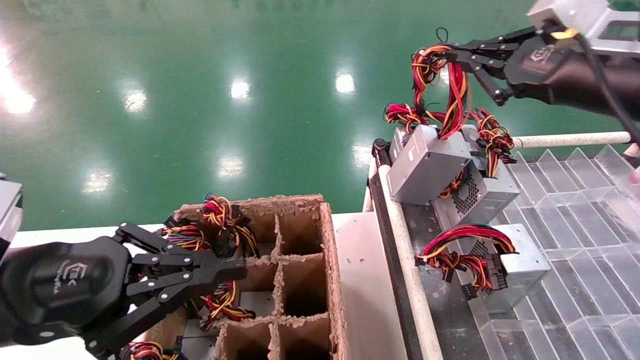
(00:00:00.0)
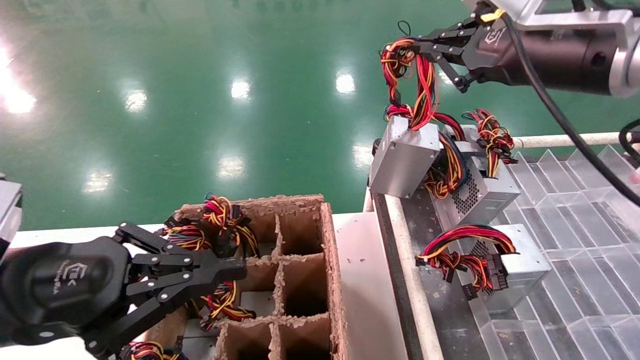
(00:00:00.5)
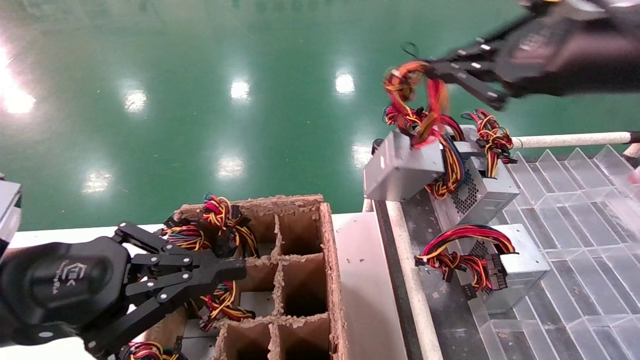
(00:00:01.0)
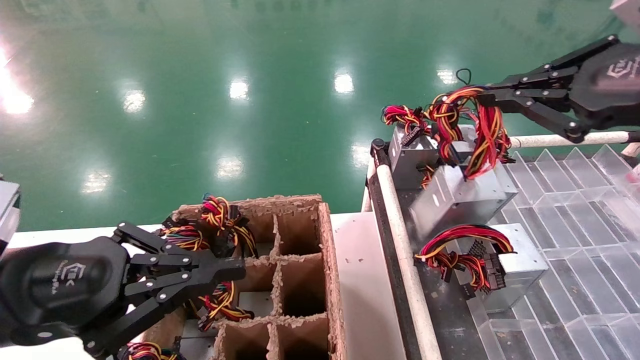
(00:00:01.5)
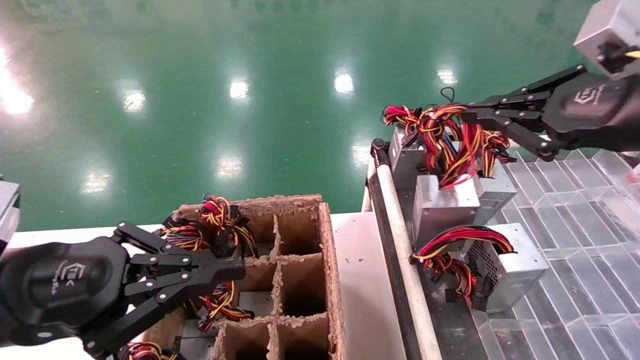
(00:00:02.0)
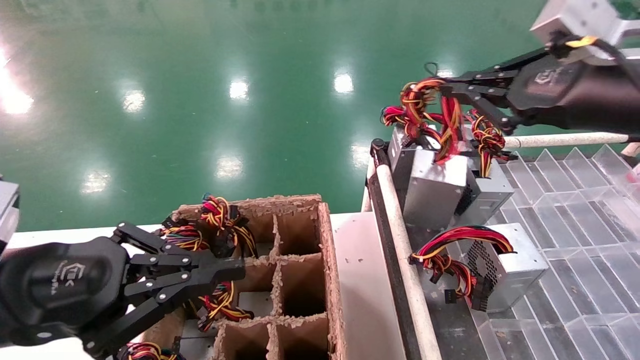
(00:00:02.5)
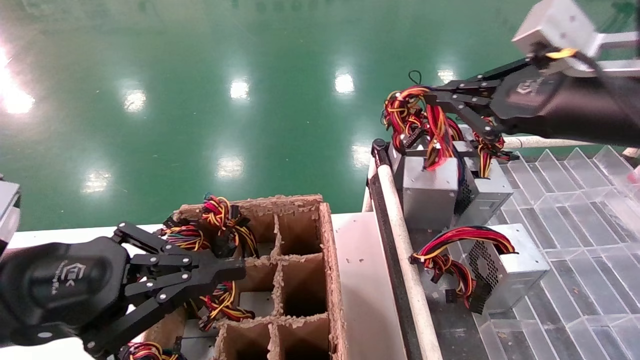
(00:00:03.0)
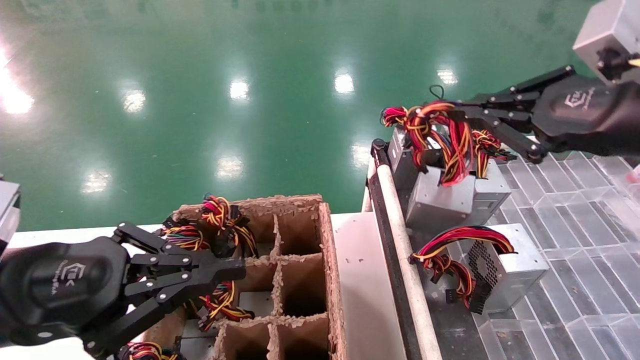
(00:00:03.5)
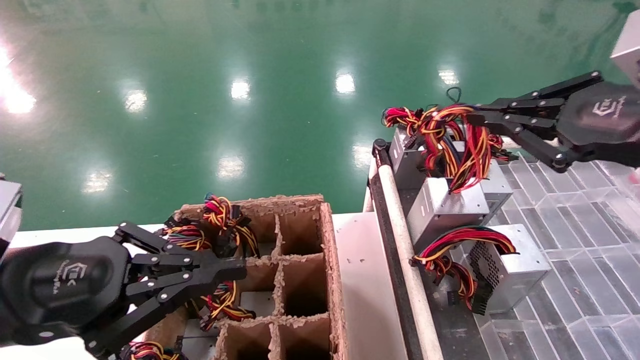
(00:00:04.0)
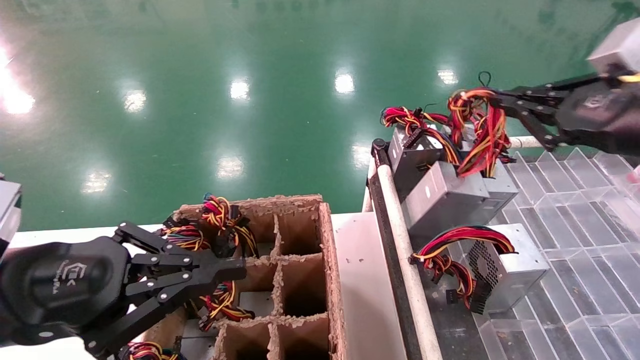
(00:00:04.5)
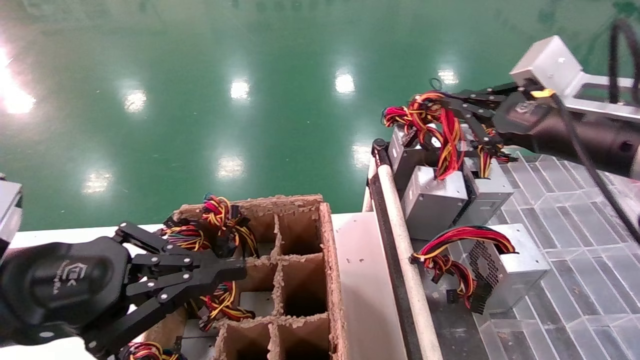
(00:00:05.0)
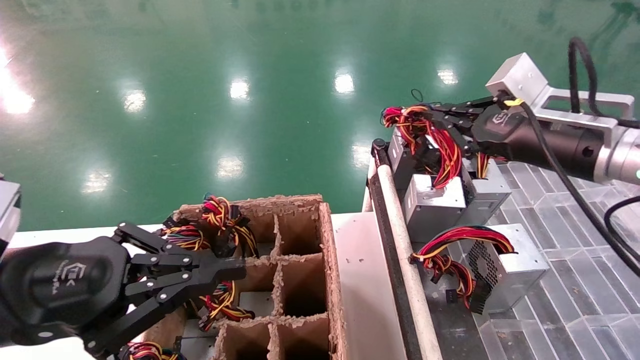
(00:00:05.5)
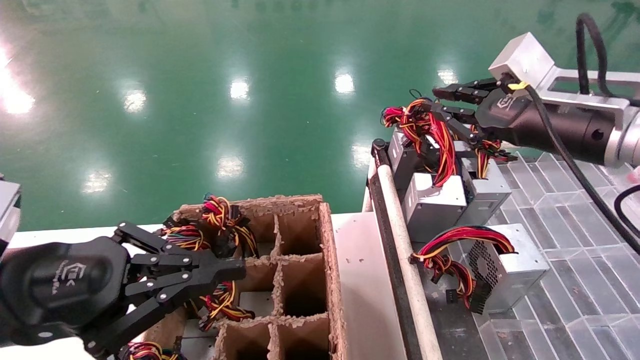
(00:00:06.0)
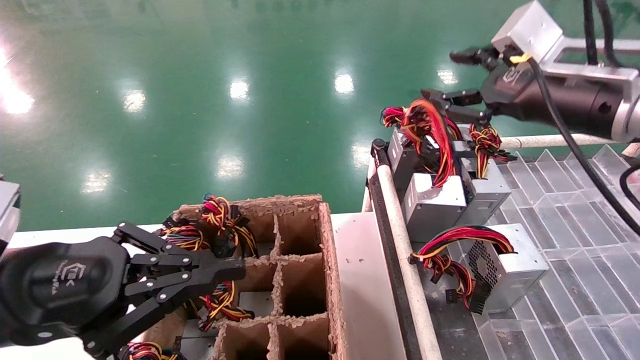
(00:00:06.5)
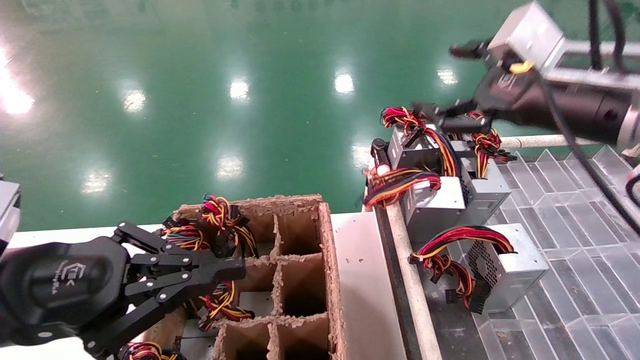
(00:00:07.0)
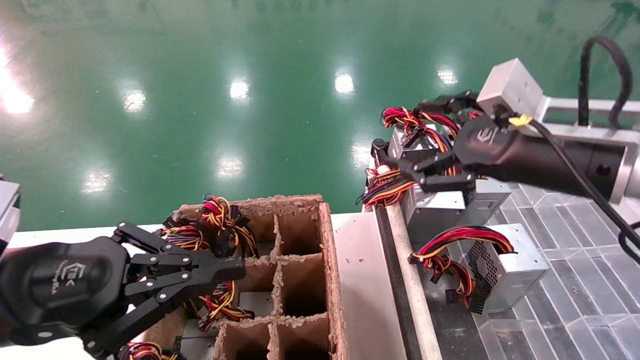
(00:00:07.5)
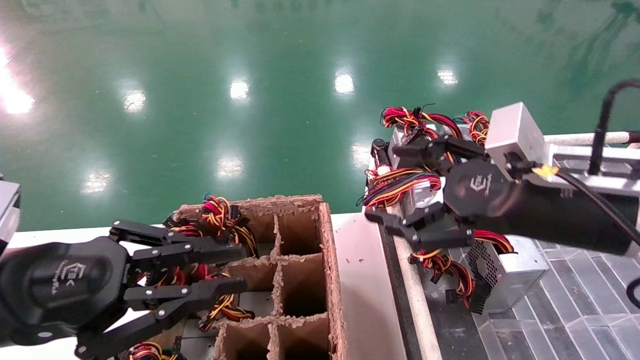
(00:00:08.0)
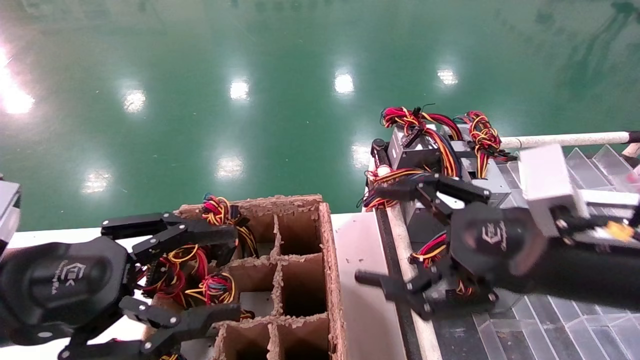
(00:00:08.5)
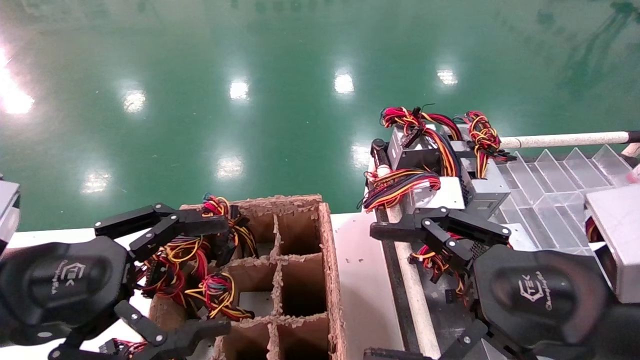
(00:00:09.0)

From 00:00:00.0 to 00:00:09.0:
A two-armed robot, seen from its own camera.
Step, from 00:00:00.0 to 00:00:05.5: Place the main unit power supply in the designated area.
From 00:00:00.0 to 00:00:02.0: The right gripper goes approximately 5 cm backward.
From 00:00:02.0 to 00:00:04.5: The right gripper moves about 5 cm.
From 00:00:04.5 to 00:00:07.0: The right gripper goes approximately 5 cm to the left, and opens its fingers.
From 00:00:07.0 to 00:00:09.0: The right gripper shifts roughly 15 cm downward and backward; the left gripper opens.
